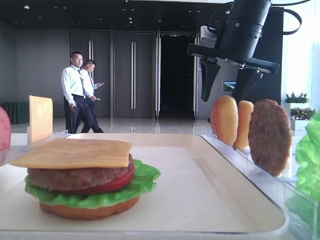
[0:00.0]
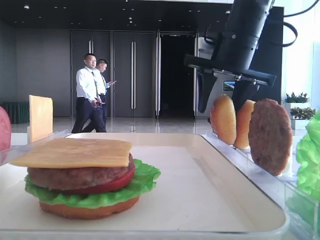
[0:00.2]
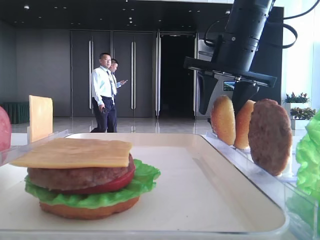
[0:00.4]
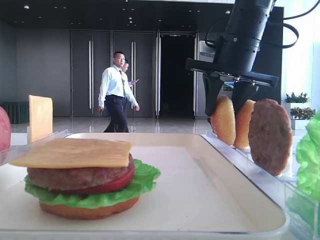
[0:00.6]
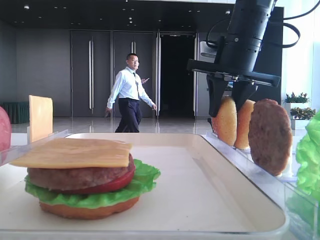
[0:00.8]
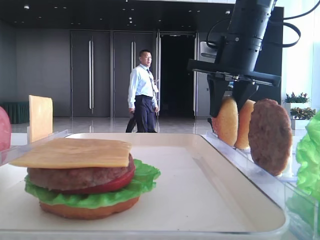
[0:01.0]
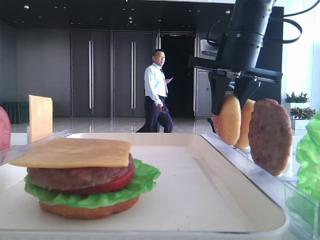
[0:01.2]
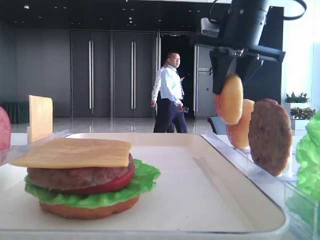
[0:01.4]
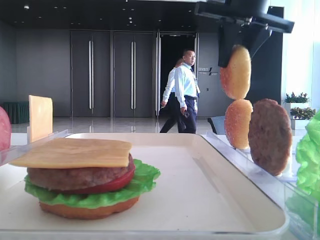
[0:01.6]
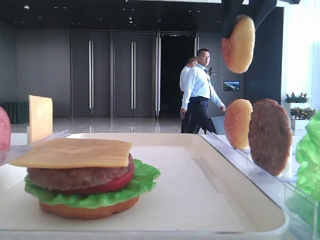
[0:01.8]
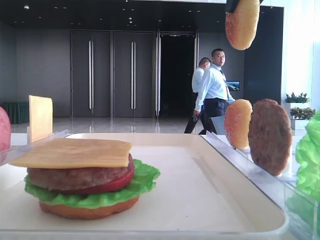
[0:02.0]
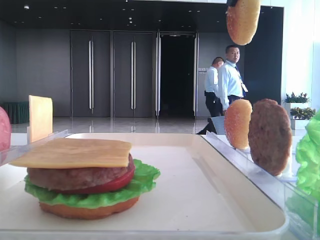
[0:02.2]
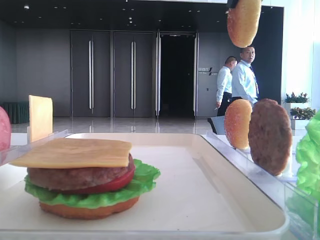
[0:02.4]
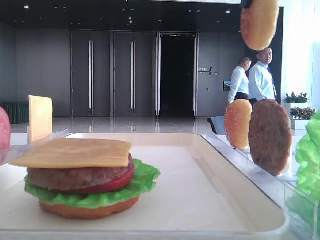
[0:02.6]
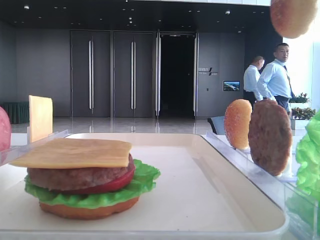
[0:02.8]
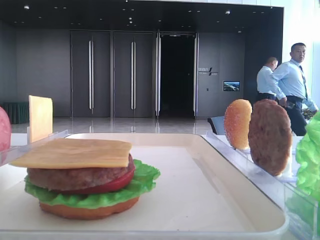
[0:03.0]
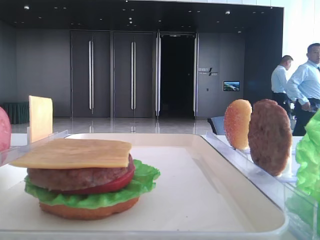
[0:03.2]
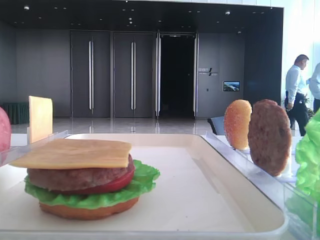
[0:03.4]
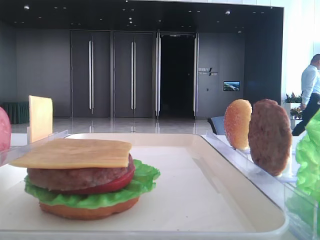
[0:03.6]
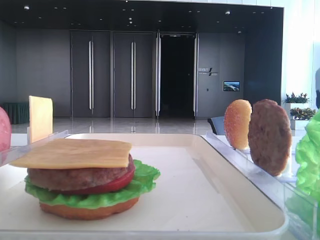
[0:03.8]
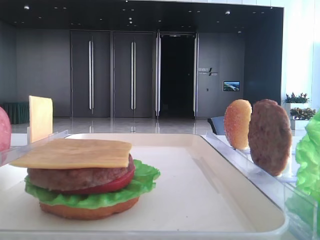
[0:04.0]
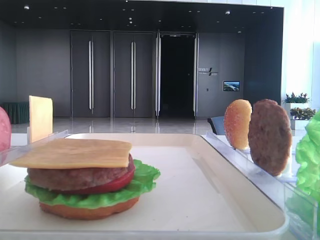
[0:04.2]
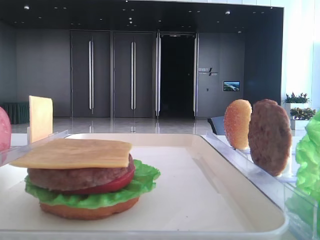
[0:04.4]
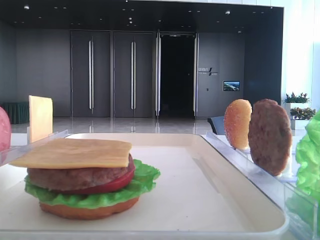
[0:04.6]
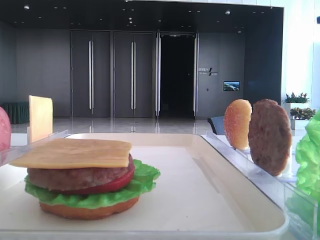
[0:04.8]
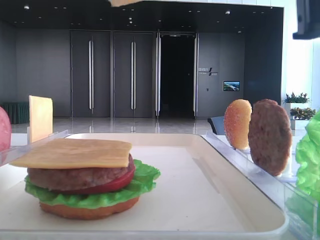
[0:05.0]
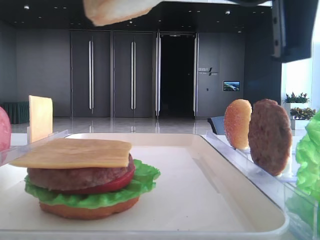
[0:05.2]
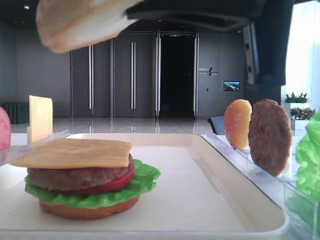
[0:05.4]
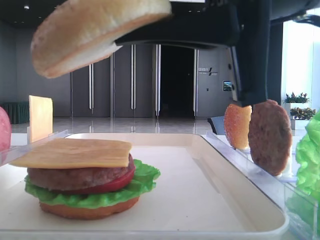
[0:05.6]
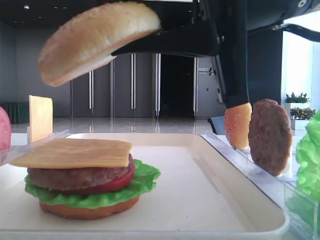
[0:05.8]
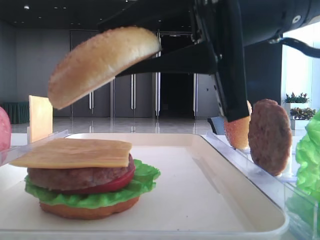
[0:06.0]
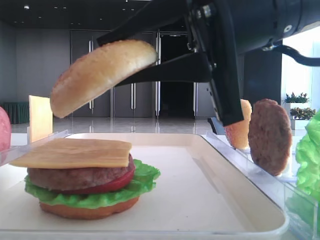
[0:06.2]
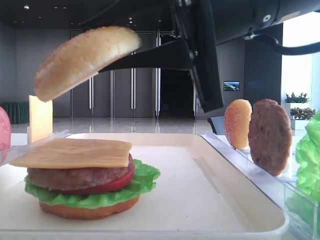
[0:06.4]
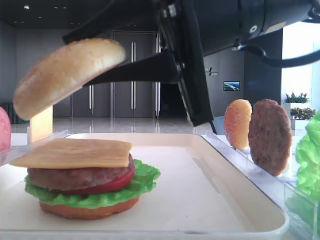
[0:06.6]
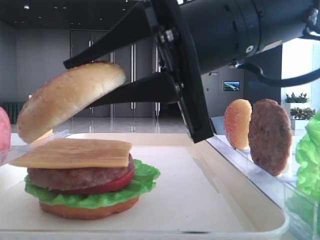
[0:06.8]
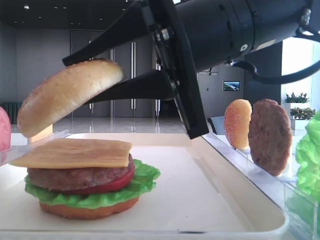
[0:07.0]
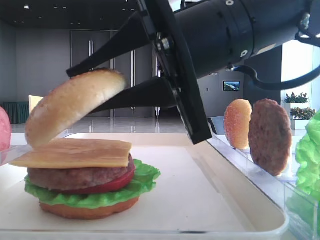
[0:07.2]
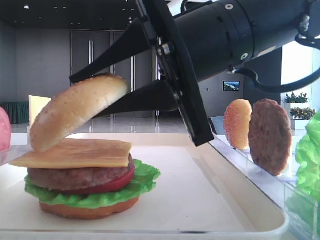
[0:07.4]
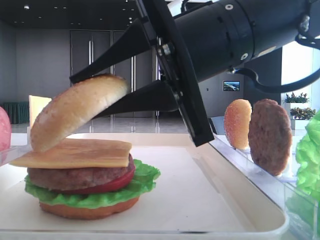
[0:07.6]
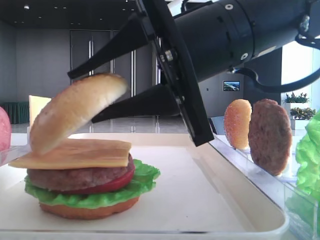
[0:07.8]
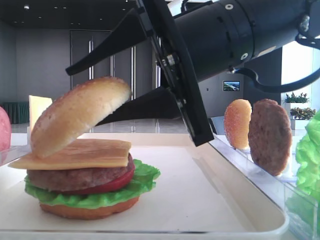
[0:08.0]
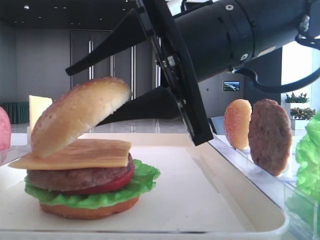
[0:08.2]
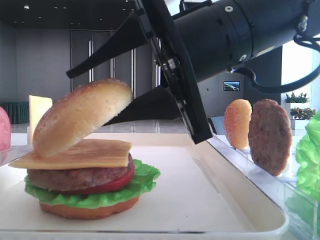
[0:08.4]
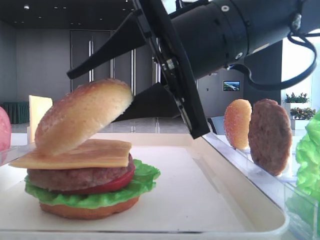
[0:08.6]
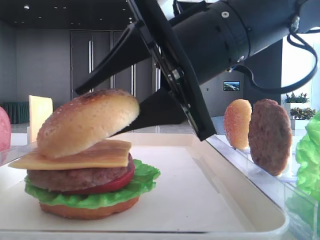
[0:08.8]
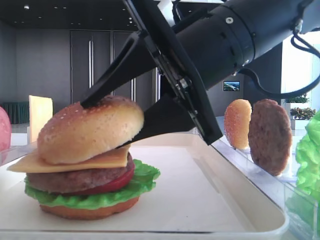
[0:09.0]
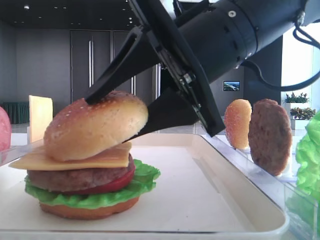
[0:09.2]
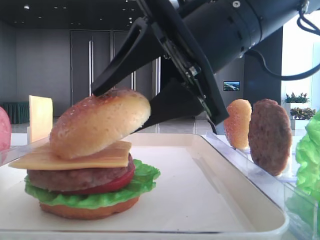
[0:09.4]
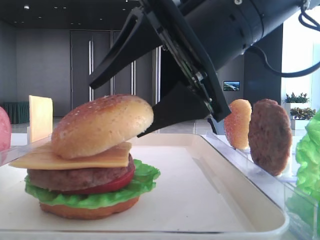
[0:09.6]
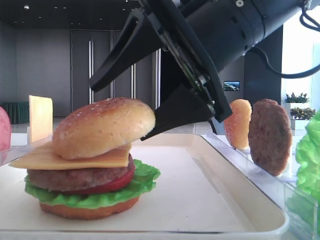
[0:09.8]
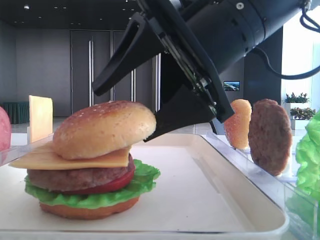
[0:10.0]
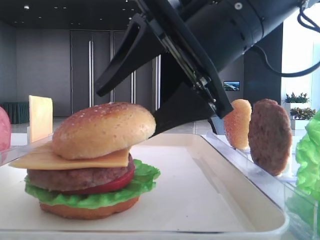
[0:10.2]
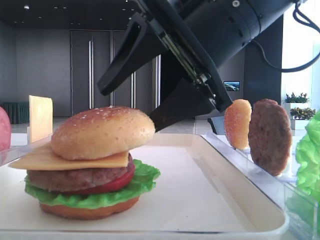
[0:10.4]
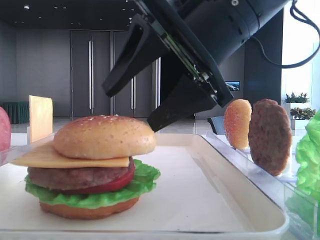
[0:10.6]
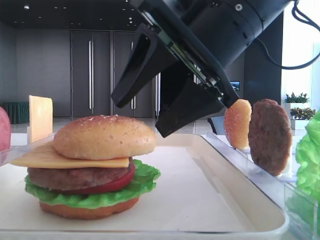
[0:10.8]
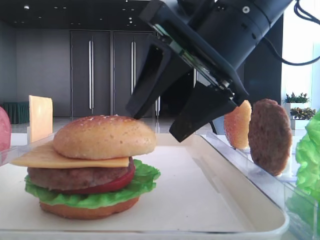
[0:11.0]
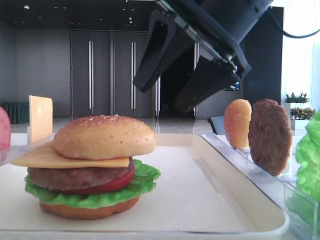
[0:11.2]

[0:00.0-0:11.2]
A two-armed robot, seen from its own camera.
Step, 0:01.2 to 0:10.4: Place the top bread slice on the cheese with the right hand.
0:00.0 to 0:01.6: The right gripper is displaced upward by roughly 5 cm, and closes.
0:01.6 to 0:03.2: The right gripper heads backward, covering approximately 25 cm.
0:03.2 to 0:04.8: The right gripper goes some 15 cm downward and to the left.
0:04.8 to 0:06.4: The right gripper goes some 10 cm to the left, forward and downward.
0:06.4 to 0:08.0: The right gripper opens its fingers.
0:08.0 to 0:09.6: The right gripper opens up.

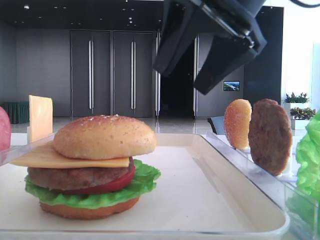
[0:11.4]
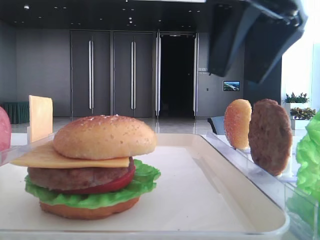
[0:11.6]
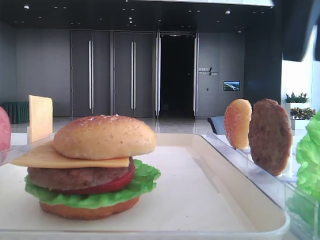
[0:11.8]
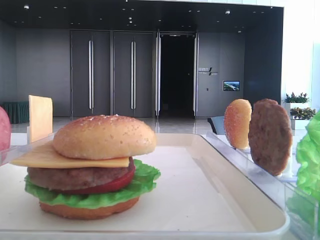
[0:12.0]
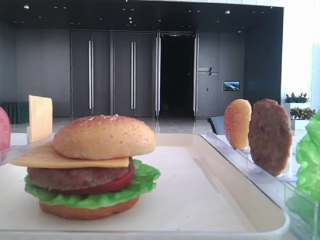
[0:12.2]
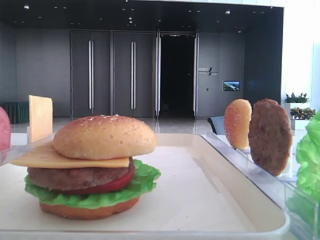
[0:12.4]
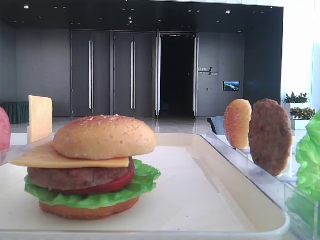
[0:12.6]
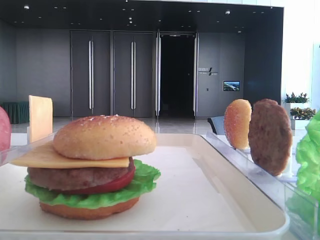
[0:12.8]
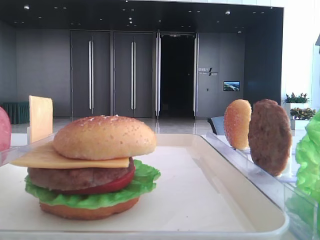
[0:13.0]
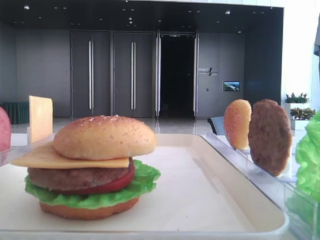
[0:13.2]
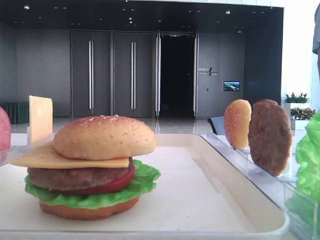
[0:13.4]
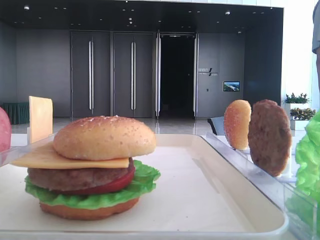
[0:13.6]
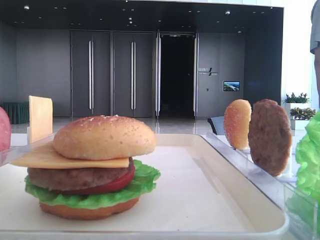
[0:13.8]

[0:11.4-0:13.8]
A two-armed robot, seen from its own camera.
0:11.4 to 0:12.6: The right gripper is displaced to the right and upward by approximately 25 cm, and closes its fingers.
0:12.6 to 0:13.8: The right gripper travels backward and downward by about 20 cm.

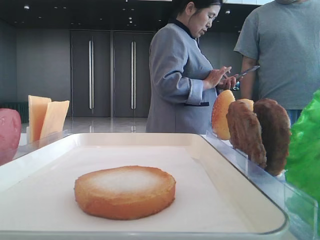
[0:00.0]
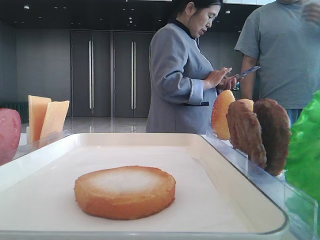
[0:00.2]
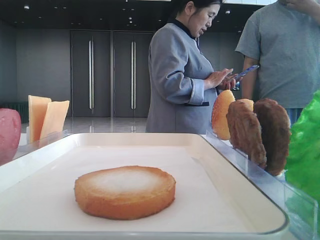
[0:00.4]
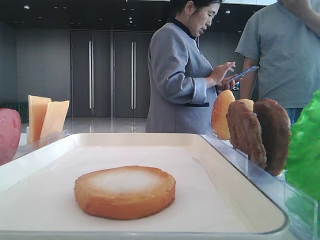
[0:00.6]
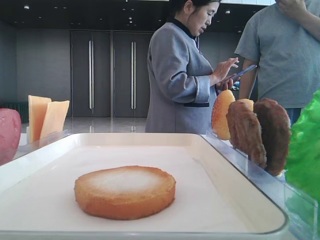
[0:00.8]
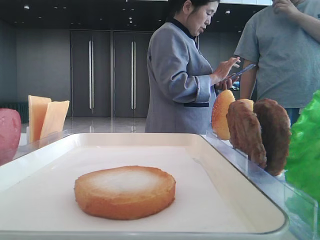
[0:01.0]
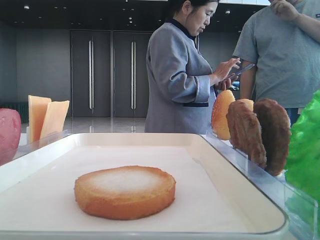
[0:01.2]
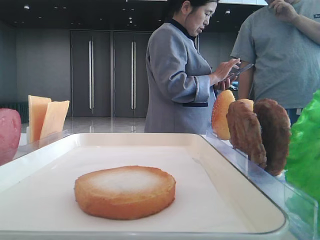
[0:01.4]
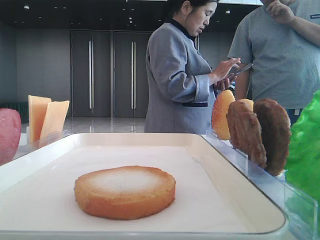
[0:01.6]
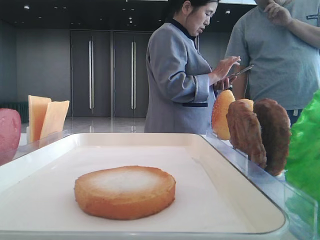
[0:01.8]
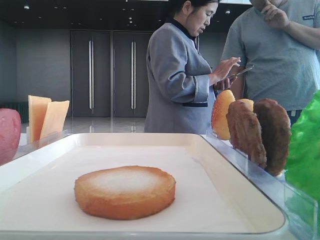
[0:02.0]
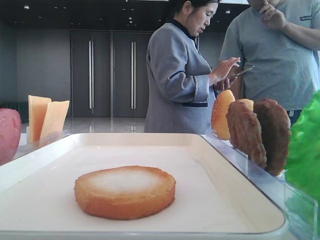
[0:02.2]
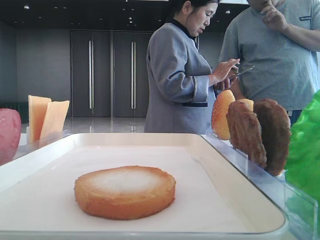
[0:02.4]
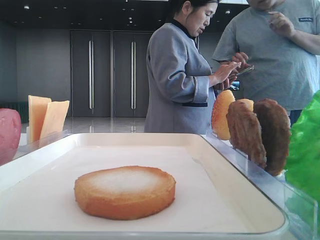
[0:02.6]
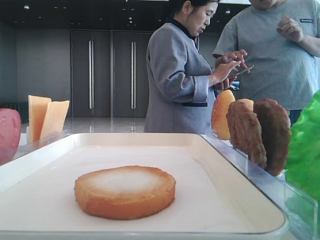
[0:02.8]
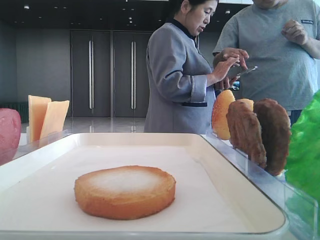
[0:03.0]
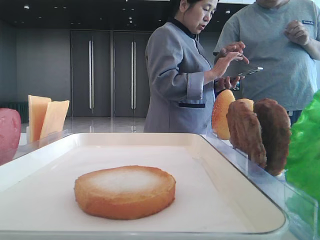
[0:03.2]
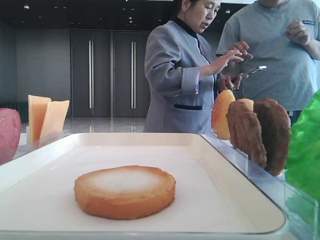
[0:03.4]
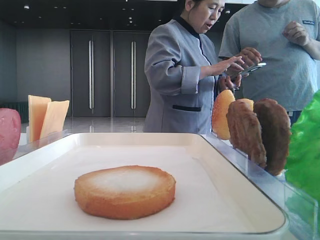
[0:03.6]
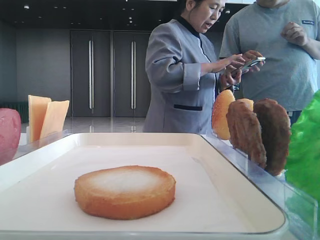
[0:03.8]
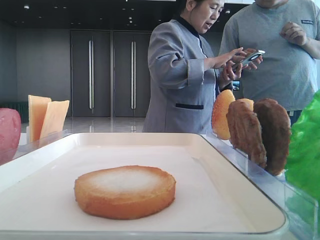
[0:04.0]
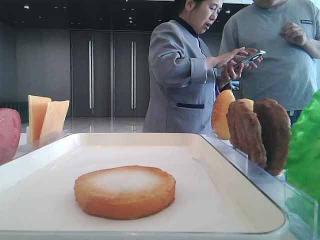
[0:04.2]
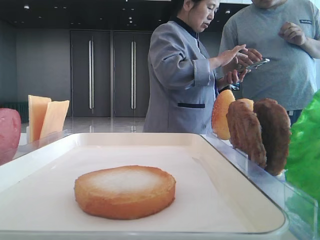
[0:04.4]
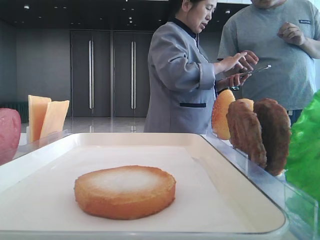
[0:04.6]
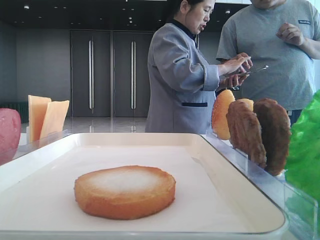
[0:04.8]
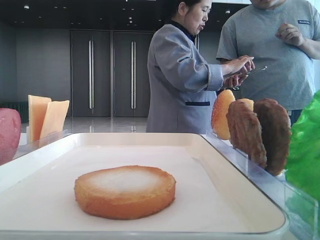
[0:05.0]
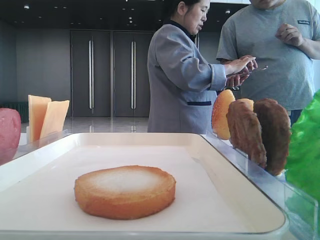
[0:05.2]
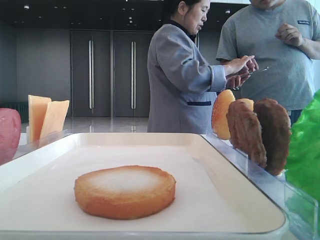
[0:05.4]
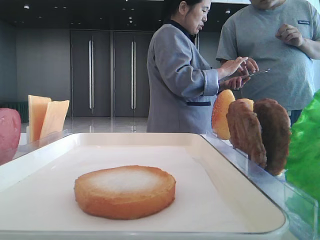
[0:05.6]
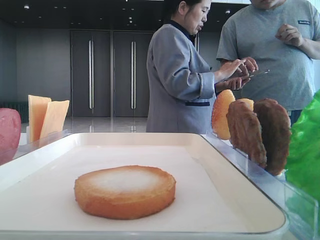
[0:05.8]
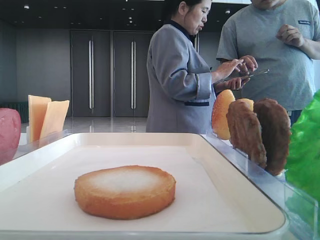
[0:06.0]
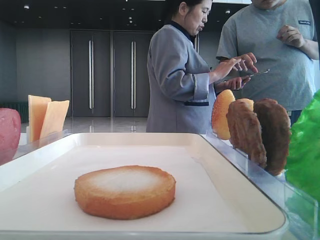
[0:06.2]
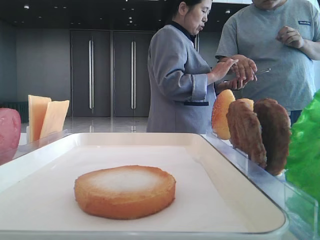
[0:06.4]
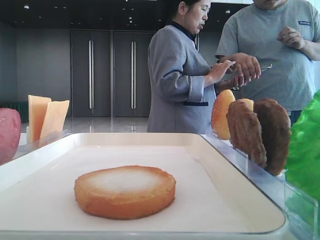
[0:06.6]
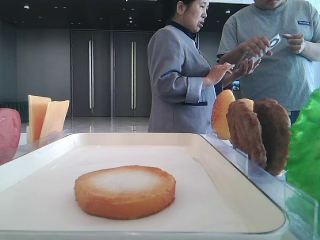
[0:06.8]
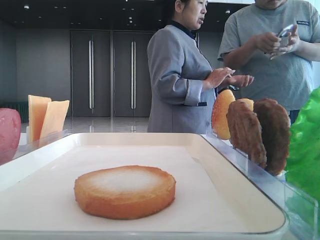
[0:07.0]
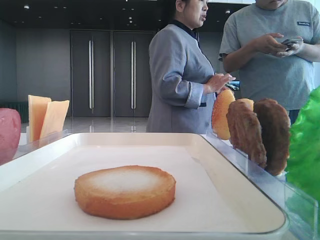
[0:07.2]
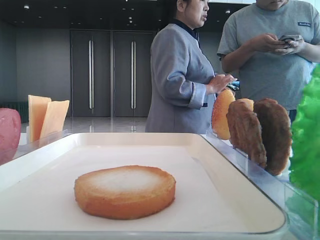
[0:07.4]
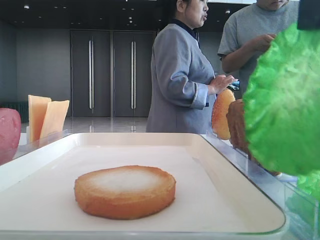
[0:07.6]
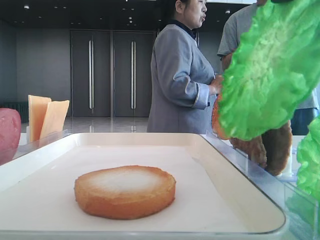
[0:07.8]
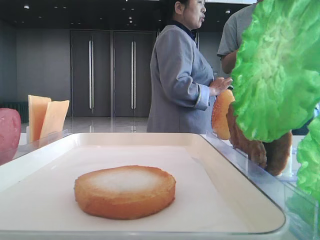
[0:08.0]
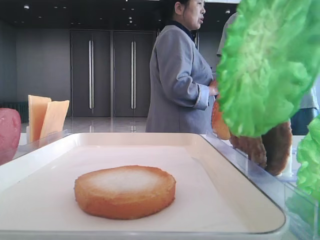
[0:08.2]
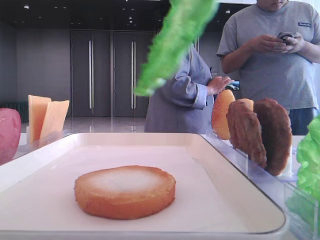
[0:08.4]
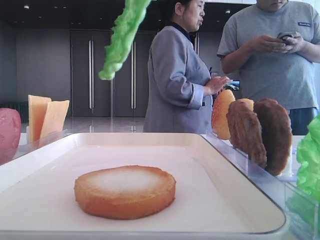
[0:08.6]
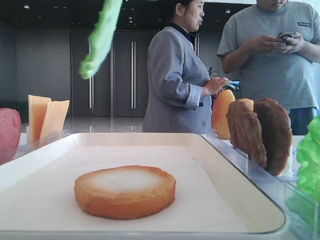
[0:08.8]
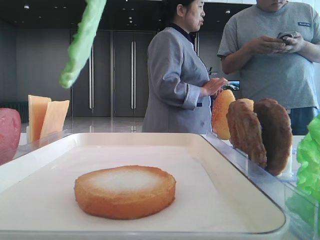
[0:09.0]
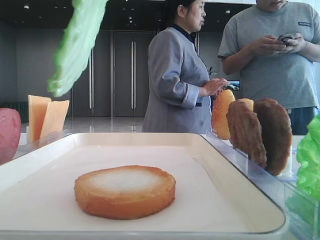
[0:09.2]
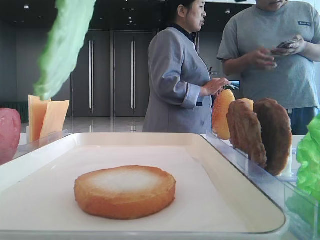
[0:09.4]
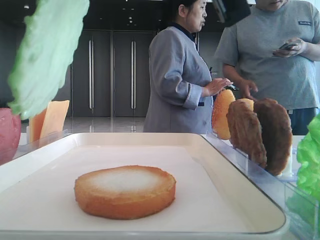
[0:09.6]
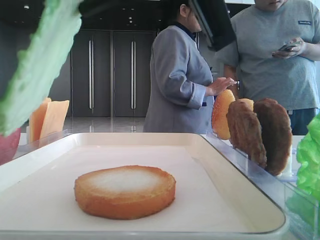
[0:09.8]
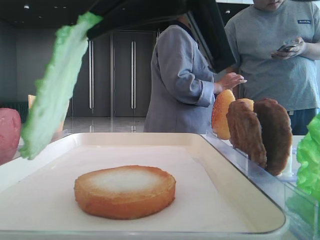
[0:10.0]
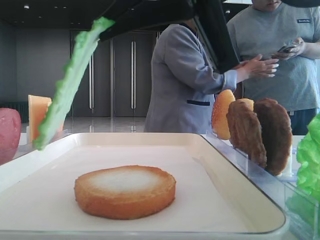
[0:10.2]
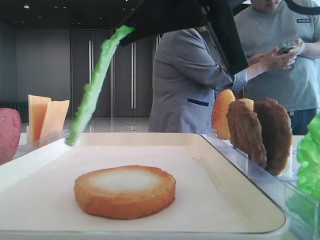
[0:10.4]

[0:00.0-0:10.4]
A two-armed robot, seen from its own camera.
Step, 0:00.0 to 0:07.2: Grab the lettuce leaf with the right hand.
0:01.4 to 0:03.0: The right gripper heads forward, covering roughly 10 cm.
0:03.0 to 0:04.4: The right gripper shifts roughly 10 cm to the left and forward.
0:04.4 to 0:06.0: The right gripper travels to the left and downward by roughly 10 cm.
0:06.0 to 0:07.4: The right gripper closes.
0:07.4 to 0:09.0: The right gripper is displaced to the left by some 10 cm.
0:09.0 to 0:10.4: The right gripper travels downward by roughly 5 cm.
